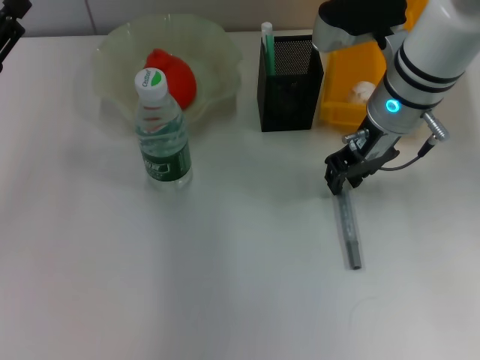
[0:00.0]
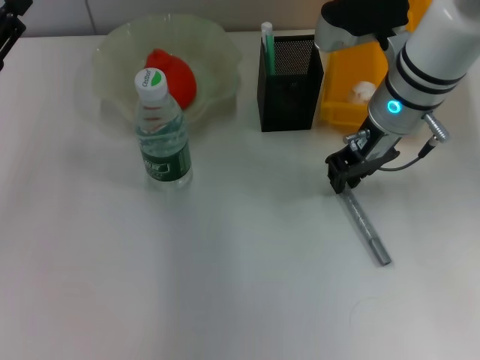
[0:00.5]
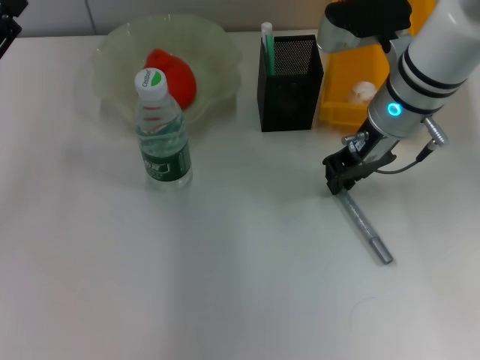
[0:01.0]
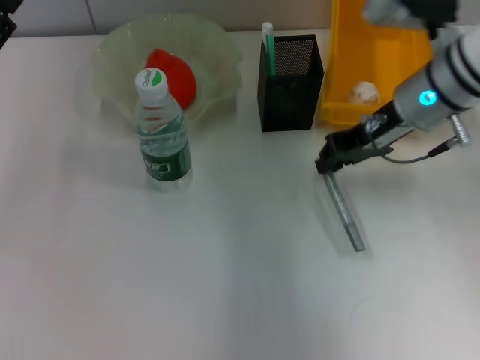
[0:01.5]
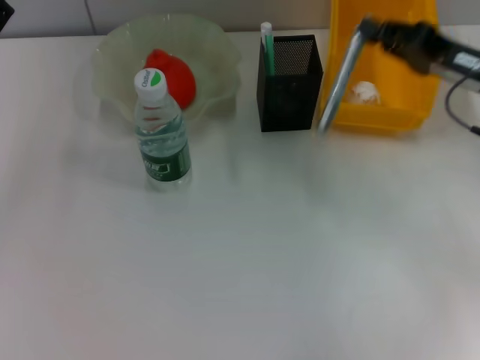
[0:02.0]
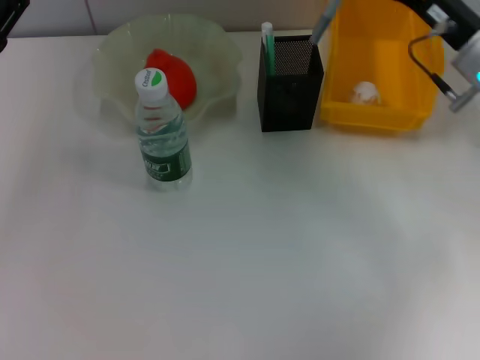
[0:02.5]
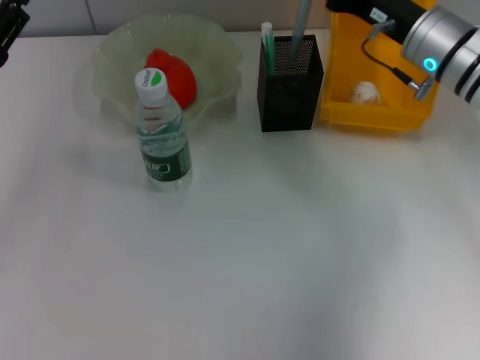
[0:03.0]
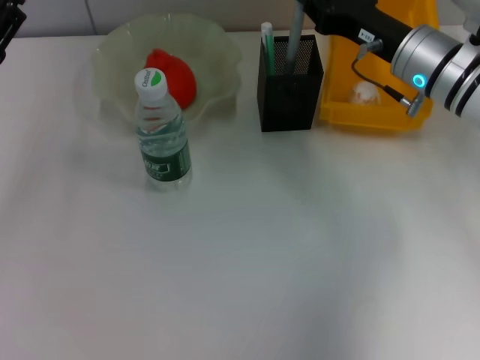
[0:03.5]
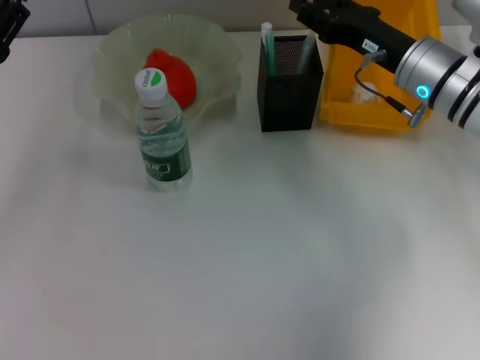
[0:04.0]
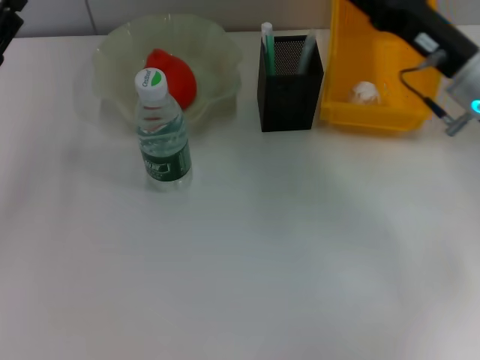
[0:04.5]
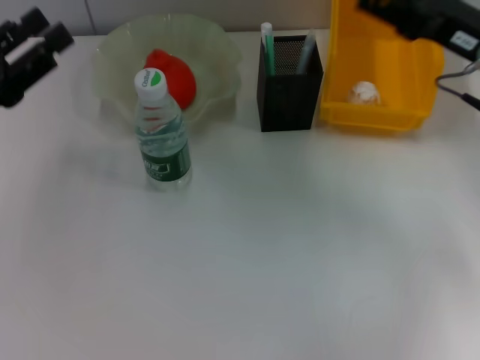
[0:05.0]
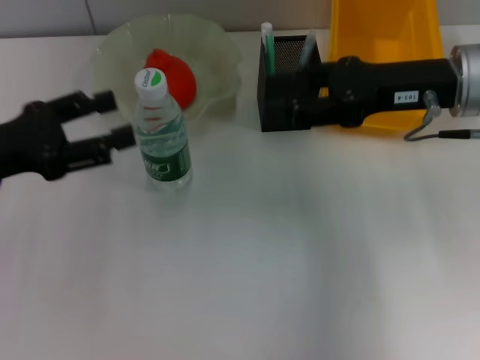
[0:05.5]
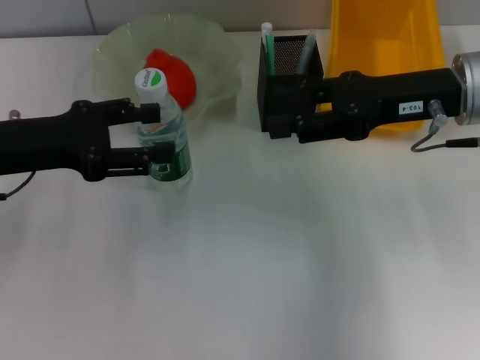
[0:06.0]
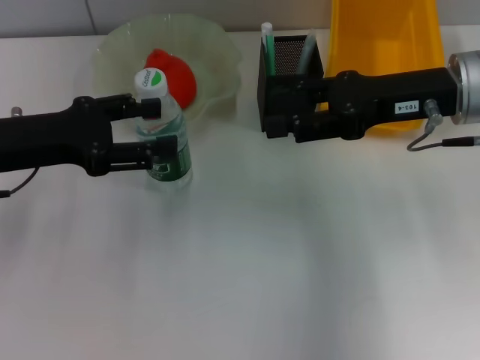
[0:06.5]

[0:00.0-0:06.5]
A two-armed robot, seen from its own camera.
Step, 0:00.5 to 0:04.0: Place the gray glue into the pen holder with the right hand.
0:00.0 to 0:02.0: The right gripper is displaced to the right by roughly 15 cm, and closes its fingers.
0:02.0 to 0:04.5: The right gripper opens its fingers.
0:04.5 to 0:06.5: The right gripper is displaced upward by roughly 5 cm, while the left gripper moves about 5 cm.
